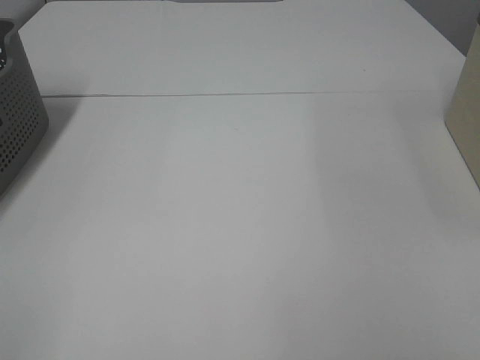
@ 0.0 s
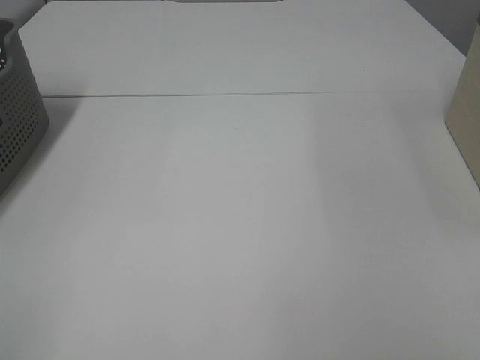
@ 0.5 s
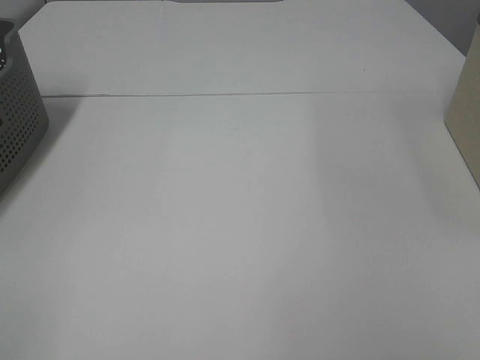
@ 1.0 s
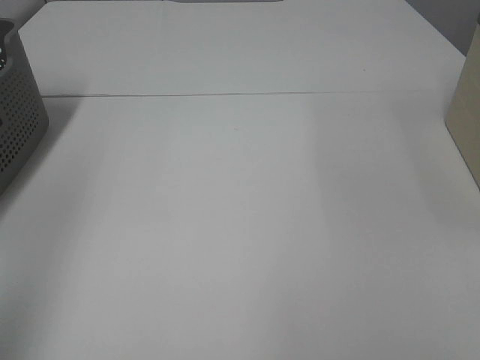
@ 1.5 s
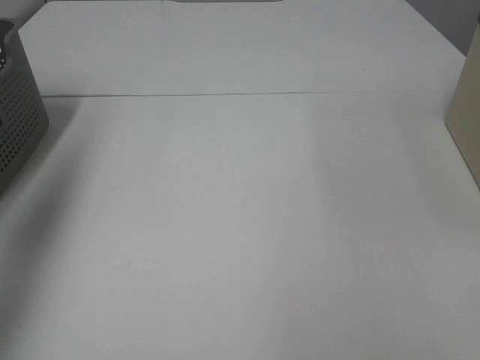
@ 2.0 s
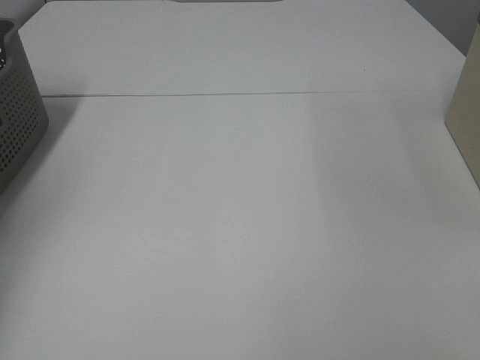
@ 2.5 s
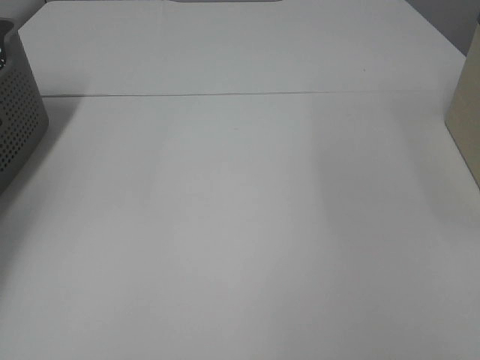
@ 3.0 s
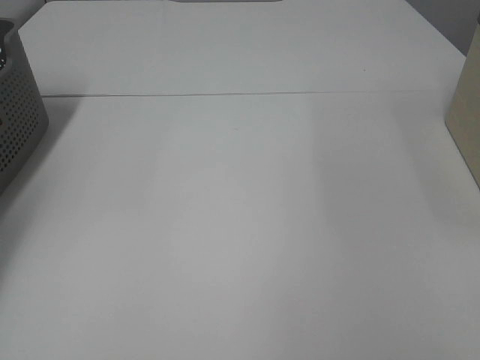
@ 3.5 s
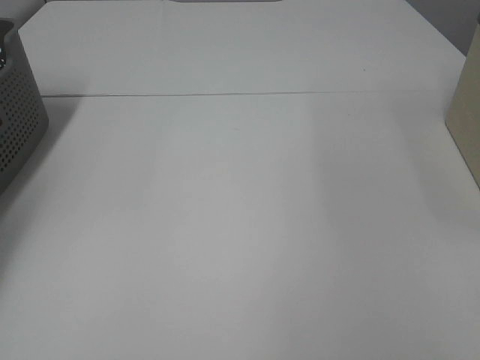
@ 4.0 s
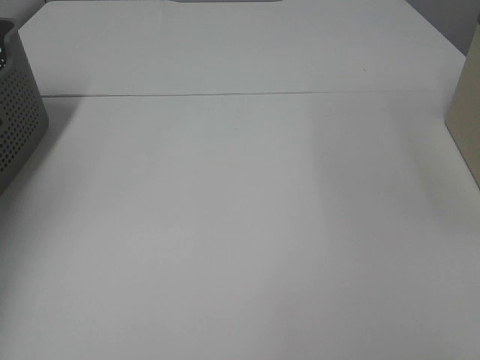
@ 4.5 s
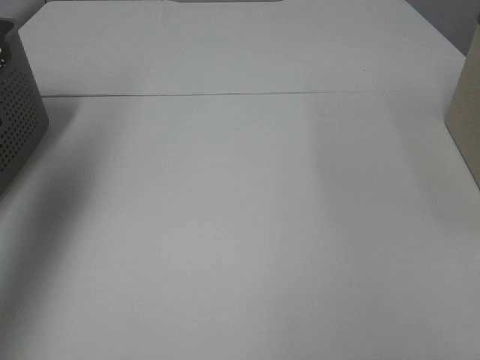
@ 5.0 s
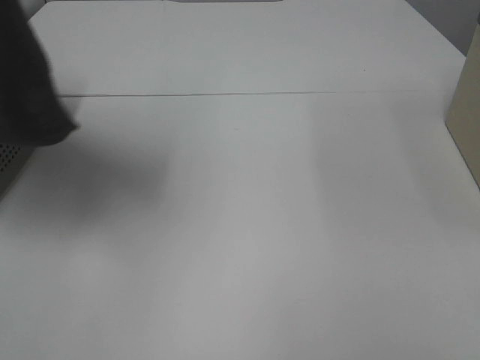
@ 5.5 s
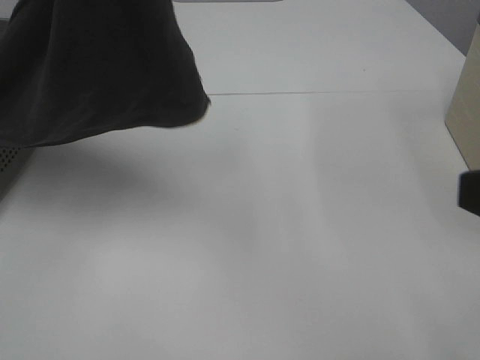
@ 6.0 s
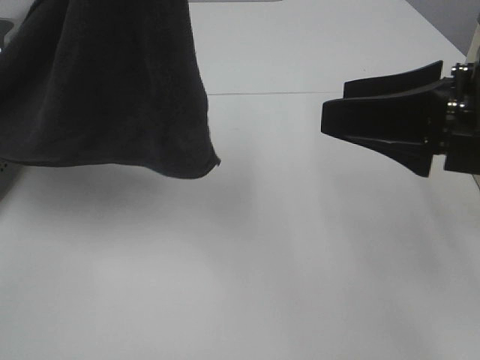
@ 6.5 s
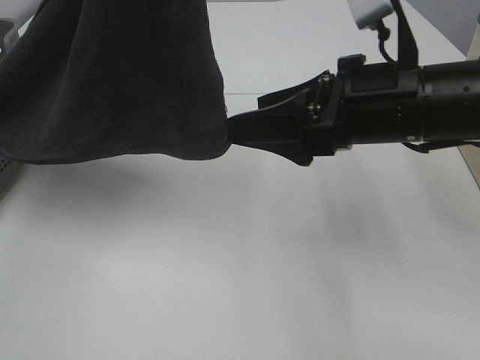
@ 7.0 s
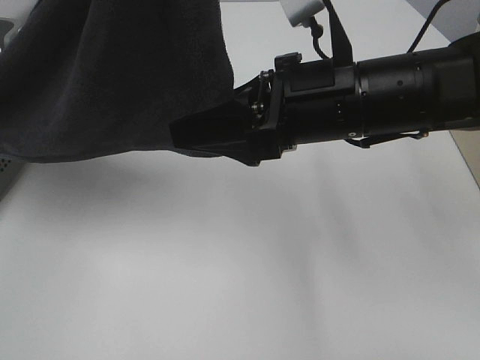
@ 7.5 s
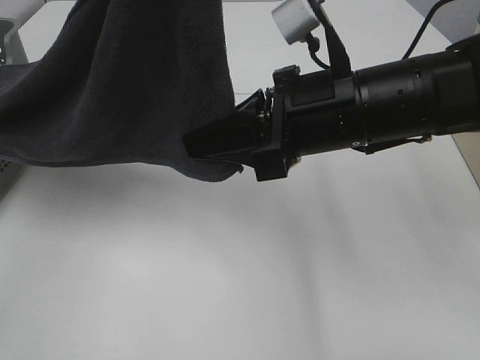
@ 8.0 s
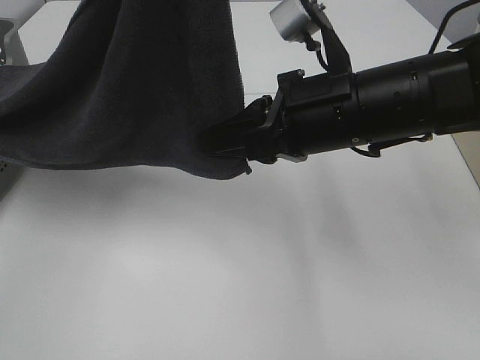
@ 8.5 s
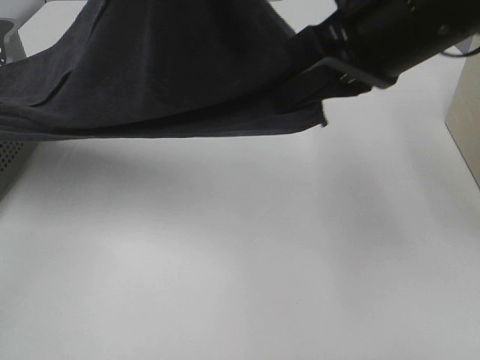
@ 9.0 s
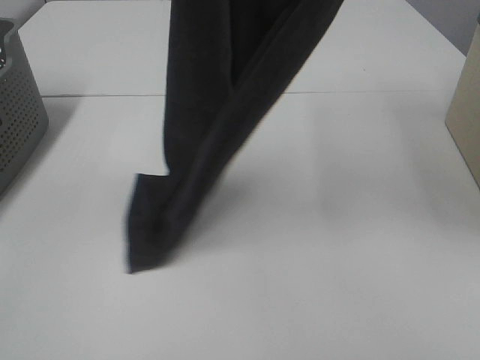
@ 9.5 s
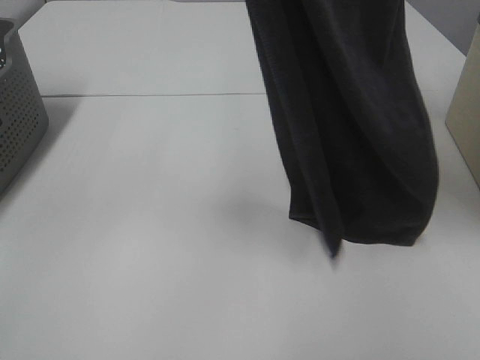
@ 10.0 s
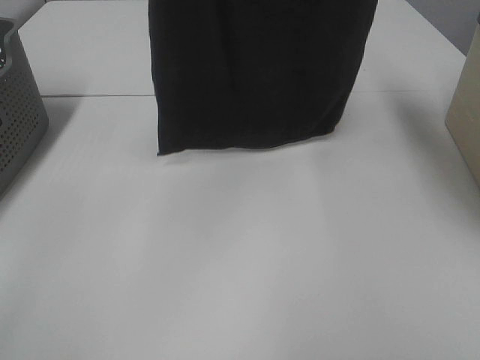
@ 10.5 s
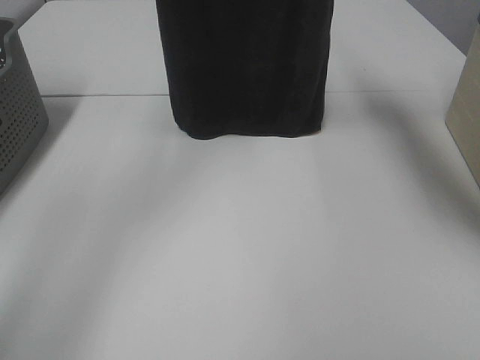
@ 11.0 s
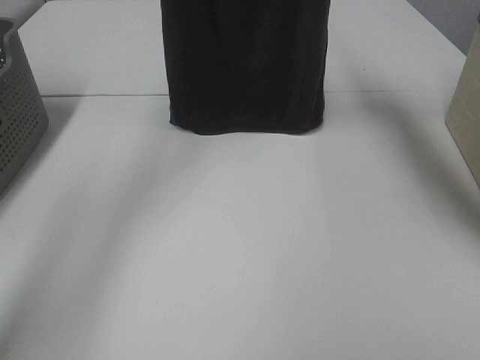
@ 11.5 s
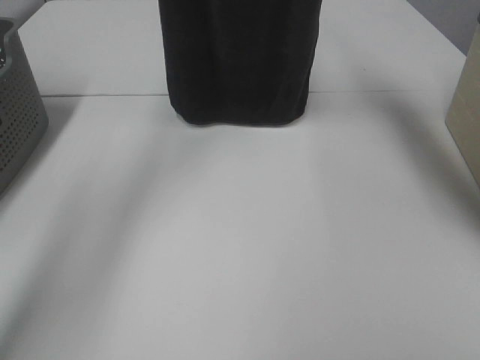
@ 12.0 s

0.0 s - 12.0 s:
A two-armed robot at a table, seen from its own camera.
Task of the whole recording: Remove the towel and place it.
Step, 5.5 s - 9.5 s: Right hand: grab a corner of the grey towel and straighten it.
0.0 s - 2.0 s: The left gripper moves forward and upward, about 30 cm.
2.0 s - 4.0 s: The left gripper moves downward, forward and to the left, some 30 cm, and closes.
4.0 s - 6.0 s: The left gripper goes roughly 50 cm to the right, upward and backward. Meanwhile the right gripper moves forward, some 10 cm.
6.0 s - 8.0 s: The right gripper moves forward, to the left and downward, roughly 20 cm, and closes up.
8.0 s - 10.0 s: The right gripper heads upward, covering approximately 30 cm. The left gripper goes roughly 5 cm forward.
10.0 s - 12.0 s: Both grippers move forward, roughly 15 cm.

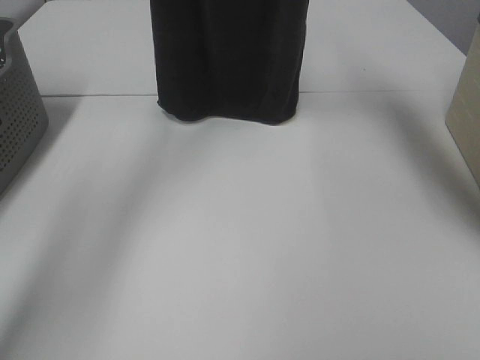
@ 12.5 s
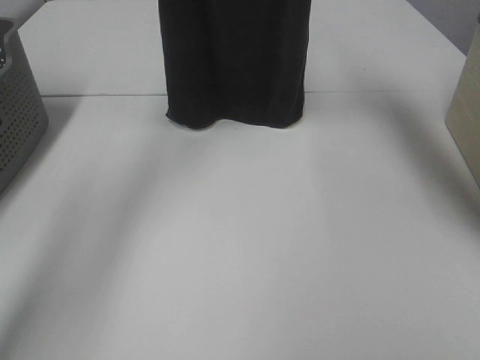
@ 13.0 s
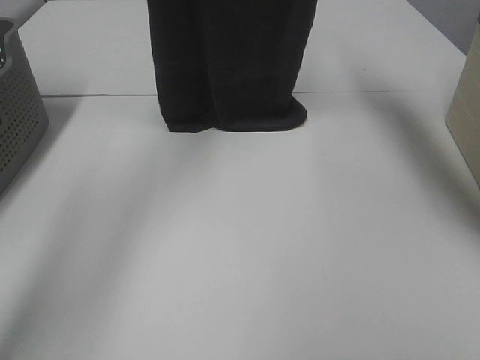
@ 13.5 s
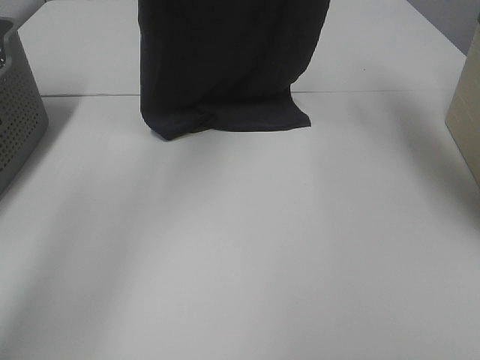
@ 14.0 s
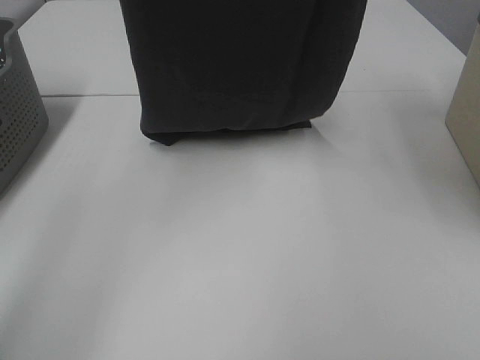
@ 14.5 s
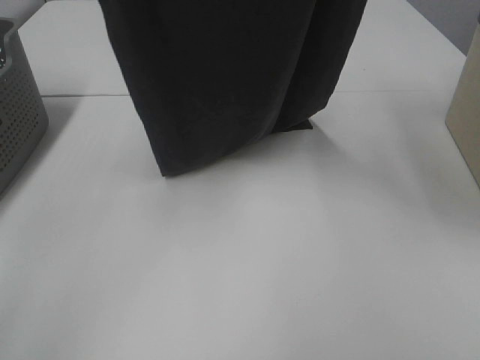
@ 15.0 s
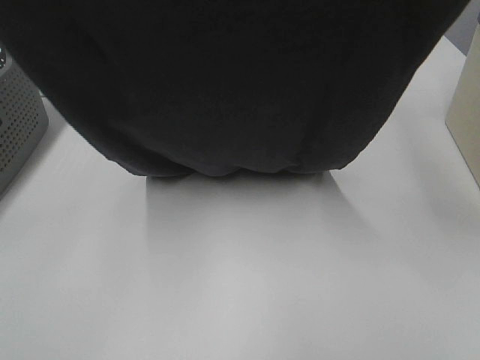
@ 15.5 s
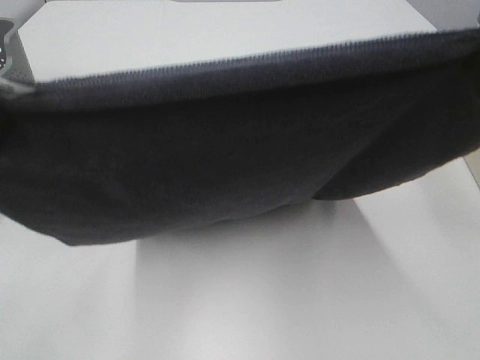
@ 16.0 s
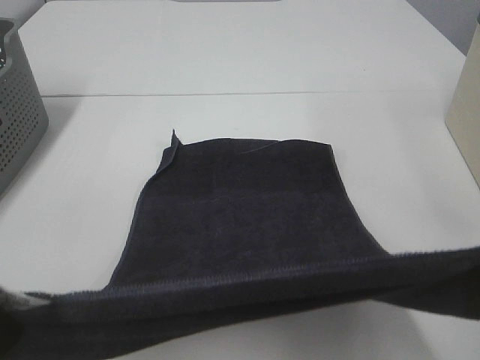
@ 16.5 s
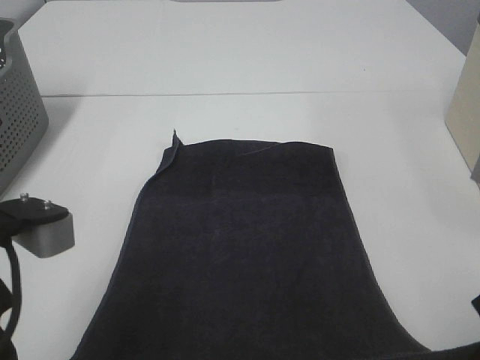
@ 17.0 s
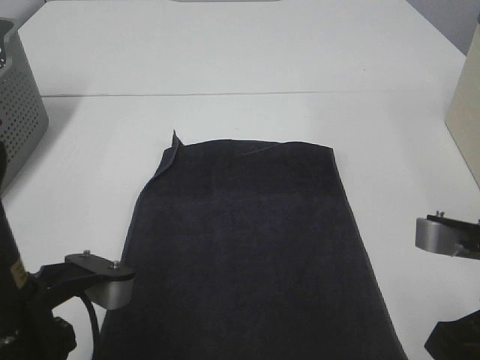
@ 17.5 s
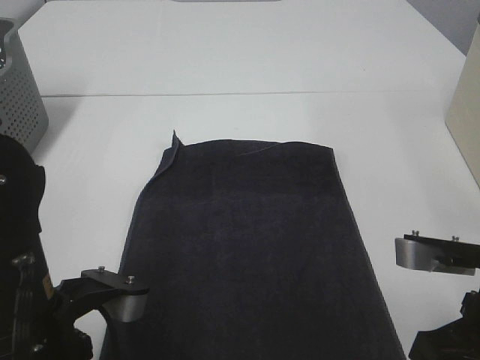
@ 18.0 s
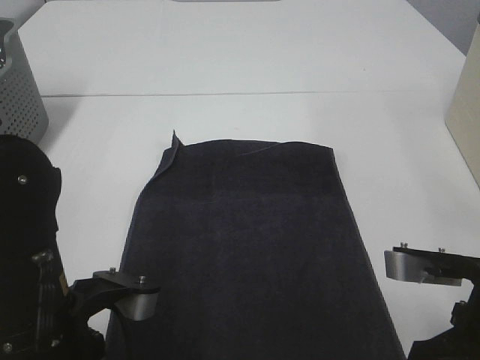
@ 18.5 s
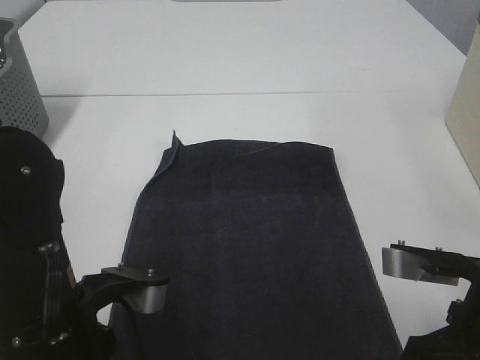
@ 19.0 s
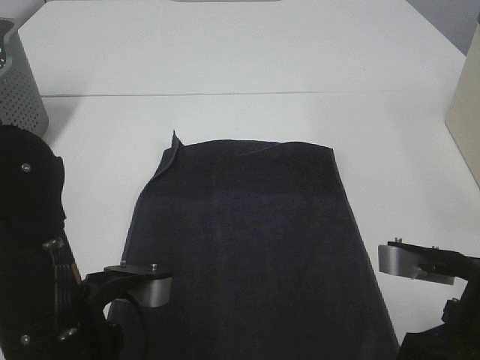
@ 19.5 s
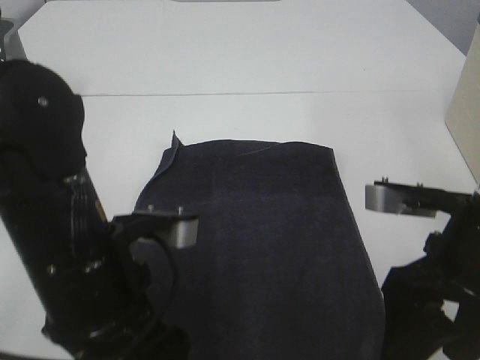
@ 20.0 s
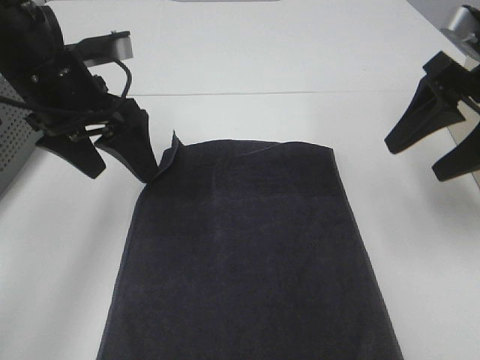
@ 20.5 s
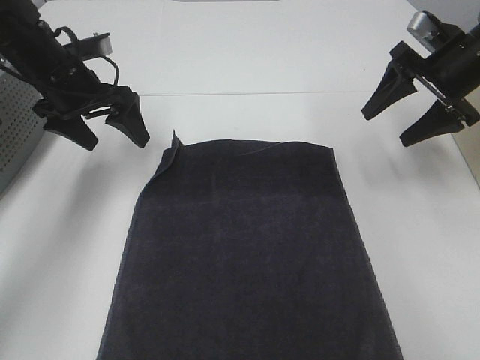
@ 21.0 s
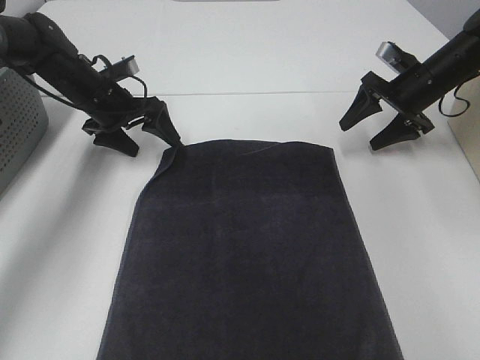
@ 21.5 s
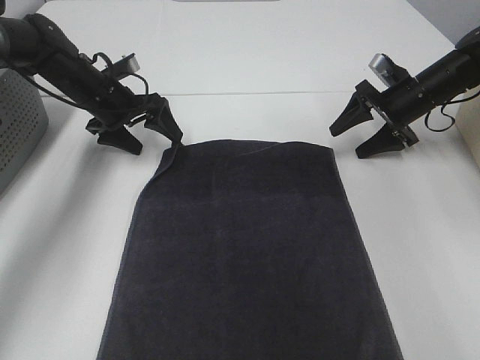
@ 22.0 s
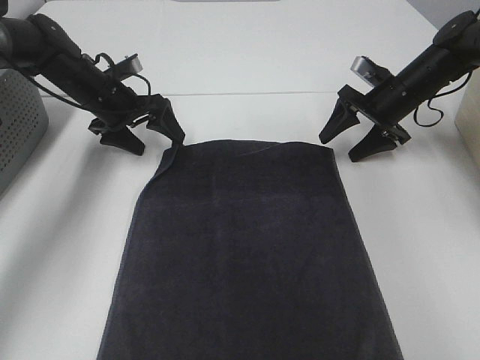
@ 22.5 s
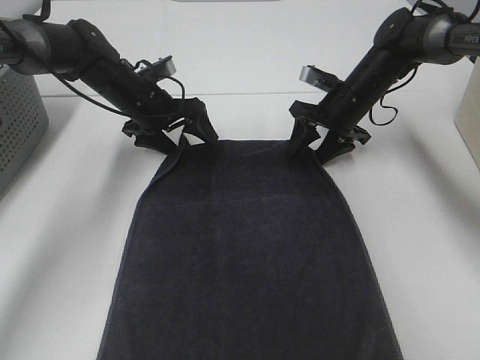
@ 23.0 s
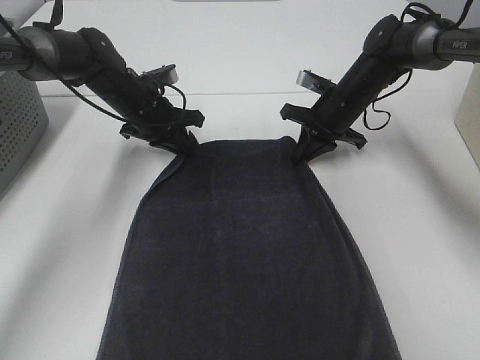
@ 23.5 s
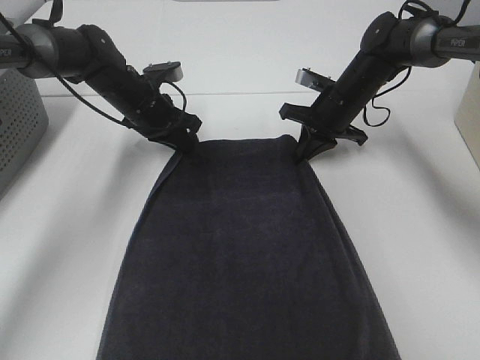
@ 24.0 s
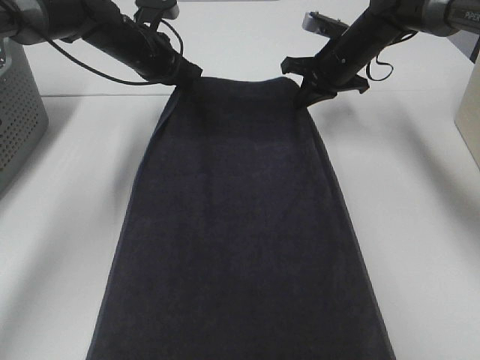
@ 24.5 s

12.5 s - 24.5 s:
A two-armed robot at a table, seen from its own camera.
Task of the whole recording: Remove the towel and place it.
Step, 12.5 s - 15.5 s: Left hand: spread the grey towel flat on the table.
Step, 12.5 s - 15.5 s: Right hand: spread the grey towel flat on the table.
Step, 16.0 s - 22.0 s: Left hand:adjust the gray towel.
Step, 16.0 s - 22.0 s: Right hand:adjust the gray towel.
12.5 s - 14.5 s: The grippers both shift backward by roughly 10 cm.
14.5 s - 16.5 s: Both grippers travel together backward and downward, some 30 cm.
16.5 s - 18.5 s: The left gripper goes roughly 15 cm downward and to the right, while the right gripper goes roughly 15 cm downward.
18.5 s - 20.5 s: The right gripper is displaced forward, upward and to the right by approximately 20 cm, and opens; the left gripper moves forward and upward, about 20 cm, and opens its fingers.
20.5 s - 22.5 s: The grippers both shift forward and downward by approximately 25 cm.
22.5 s - 24.5 s: The right gripper is displaced to the left and upward by approximately 10 cm, and closes its fingers; the left gripper travels upward and to the right by about 10 cm, and closes up.

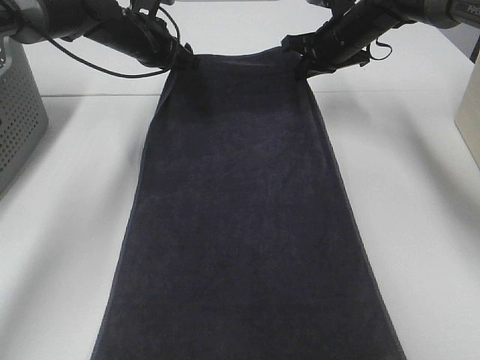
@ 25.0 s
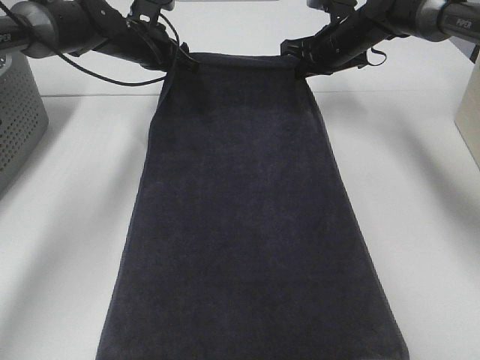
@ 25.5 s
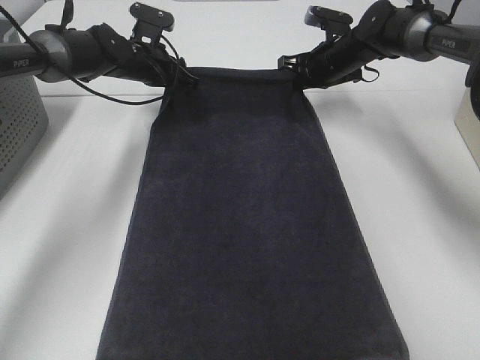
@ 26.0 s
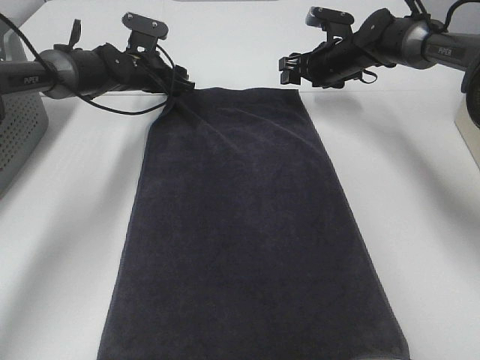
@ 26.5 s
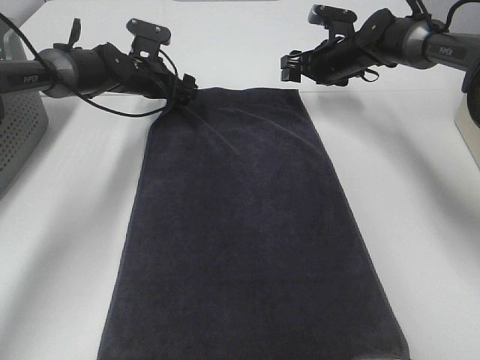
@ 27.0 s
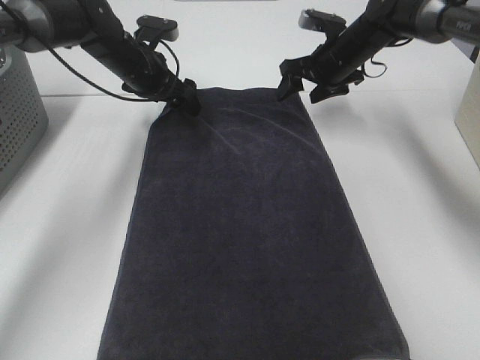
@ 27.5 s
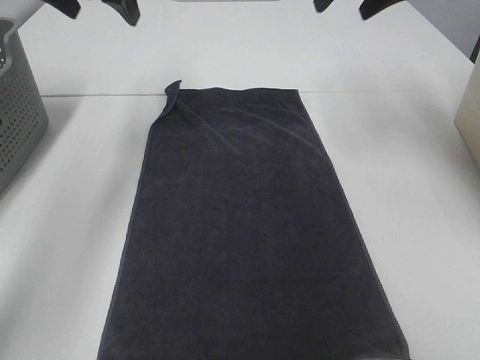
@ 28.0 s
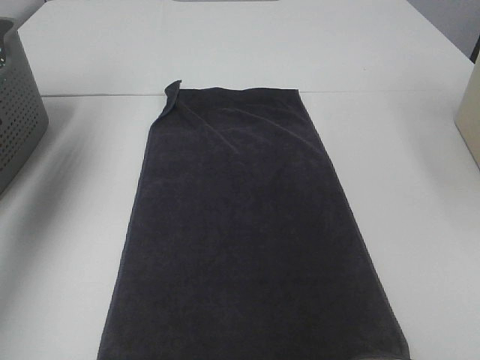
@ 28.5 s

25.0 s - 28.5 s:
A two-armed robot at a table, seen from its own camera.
Task of the whole recording: Remove the towel and place it.
25.0 s - 27.0 s: The left gripper moves downward, roughly 10 cm, and opens its fingers. Meanwhile the right gripper travels downward by roughly 5 cm, and opens its fingers.
27.0 s - 28.5 s: The right gripper shifts approximately 40 cm upward and backward. The left gripper moves upward, backward and to the left, roughly 40 cm.
